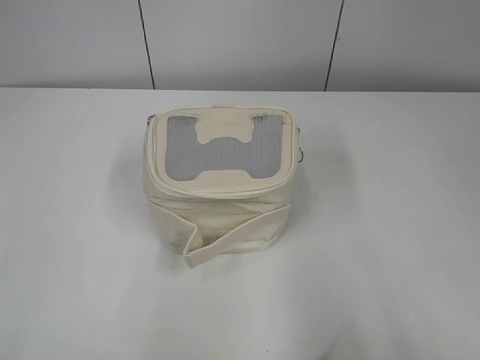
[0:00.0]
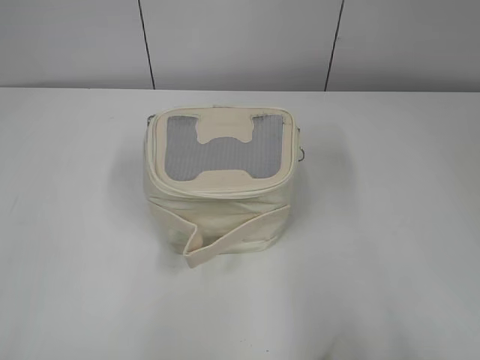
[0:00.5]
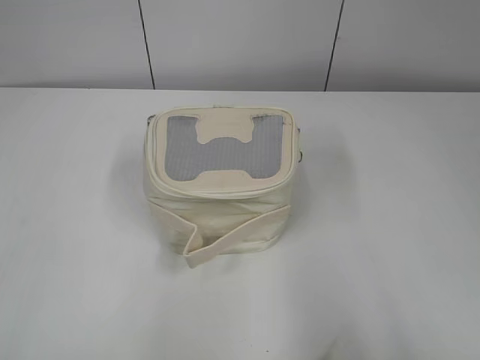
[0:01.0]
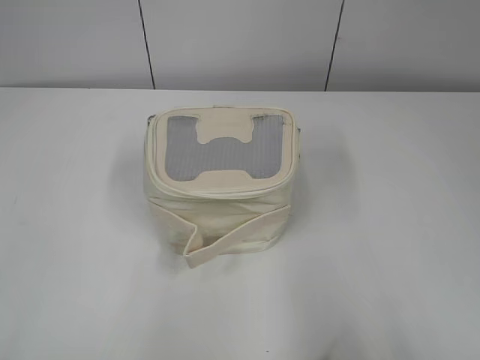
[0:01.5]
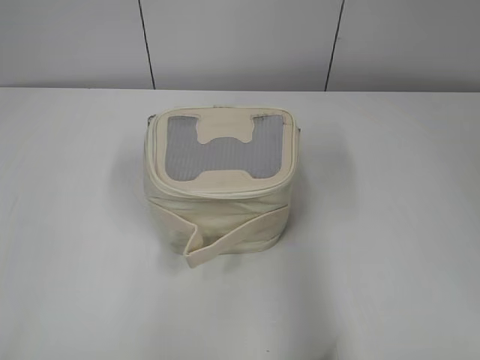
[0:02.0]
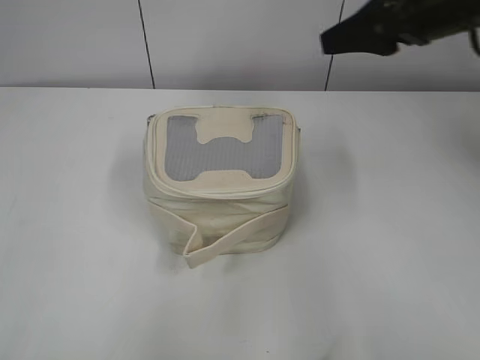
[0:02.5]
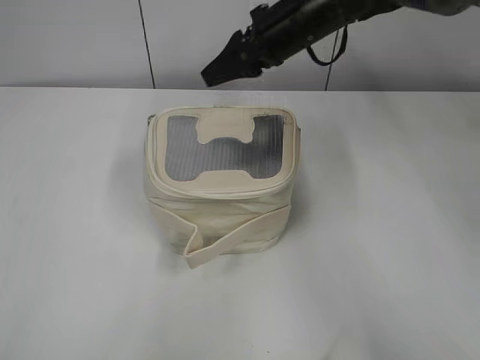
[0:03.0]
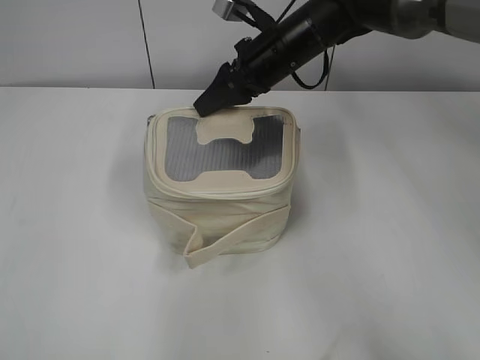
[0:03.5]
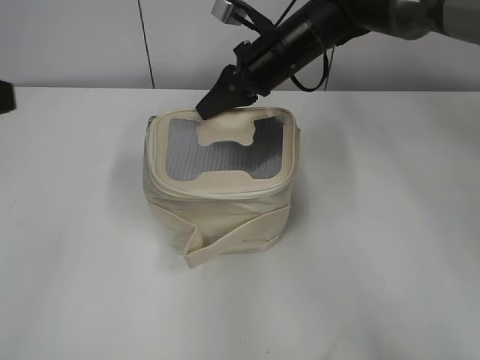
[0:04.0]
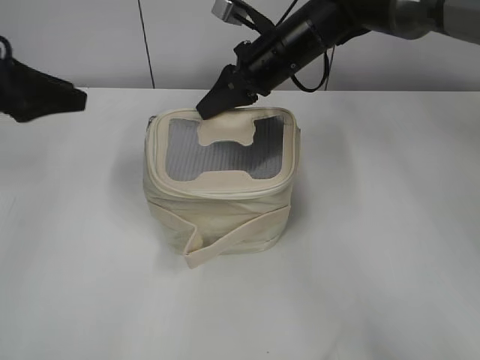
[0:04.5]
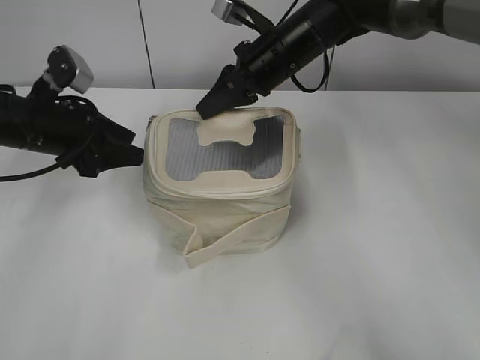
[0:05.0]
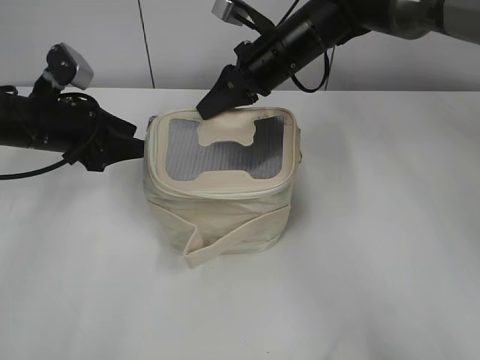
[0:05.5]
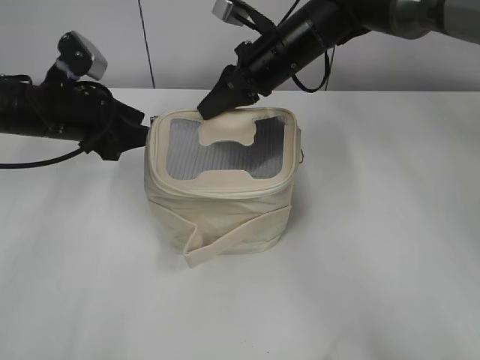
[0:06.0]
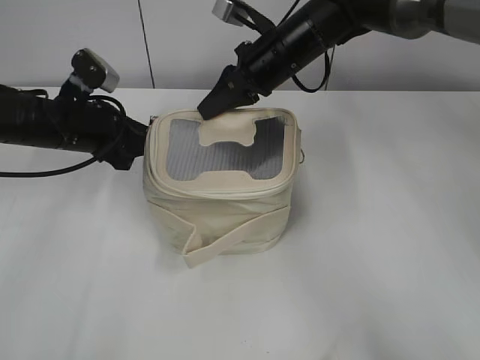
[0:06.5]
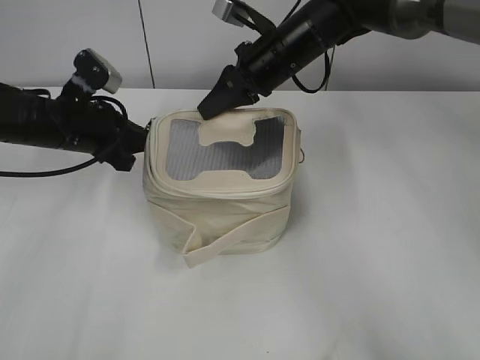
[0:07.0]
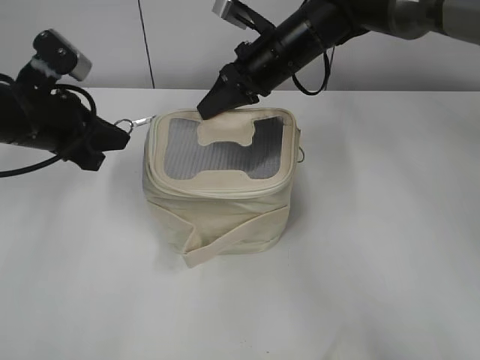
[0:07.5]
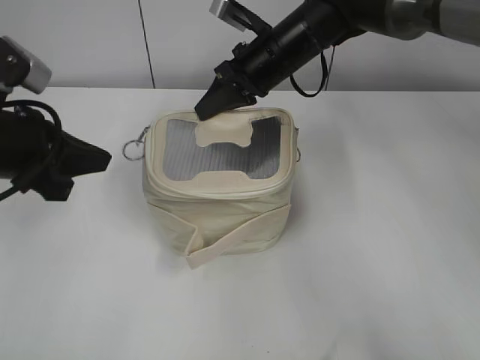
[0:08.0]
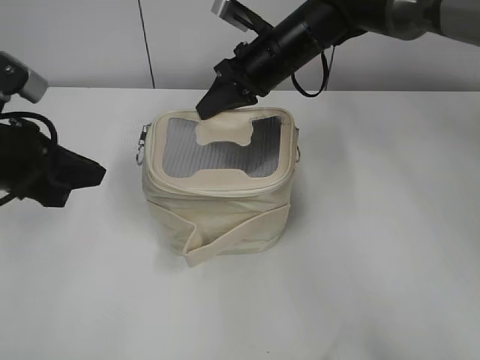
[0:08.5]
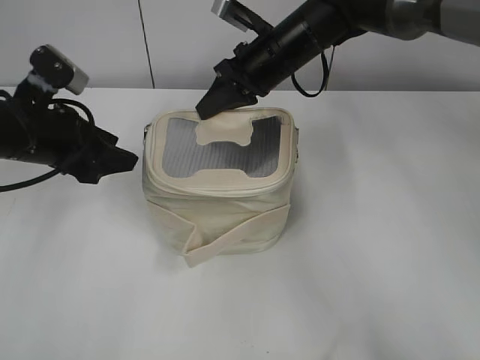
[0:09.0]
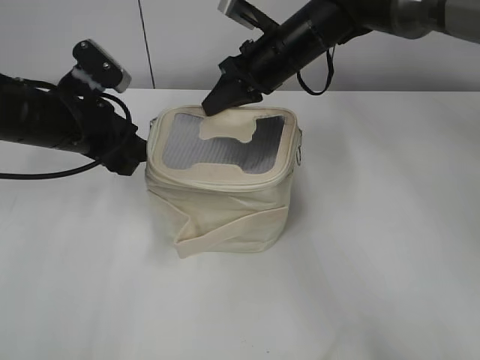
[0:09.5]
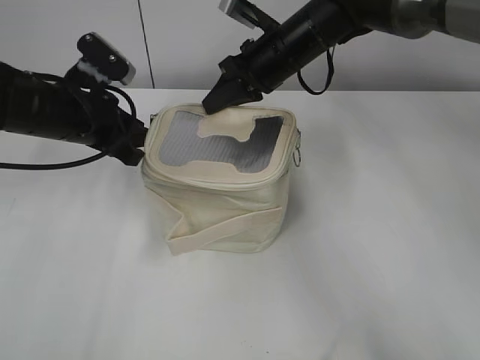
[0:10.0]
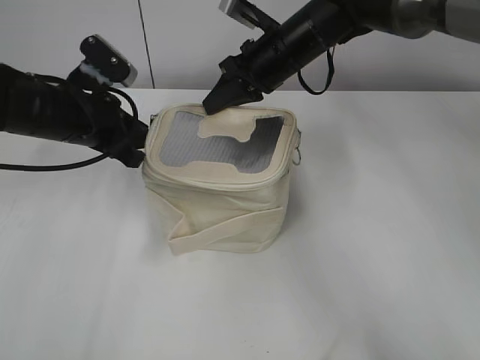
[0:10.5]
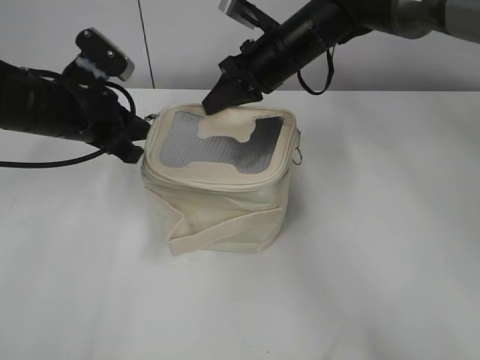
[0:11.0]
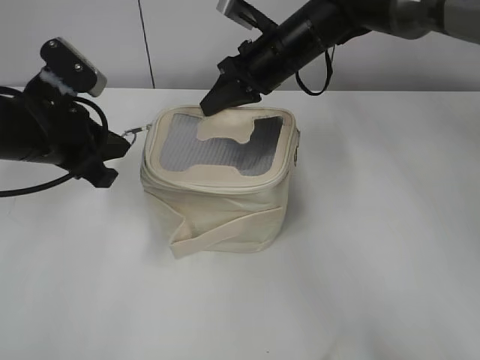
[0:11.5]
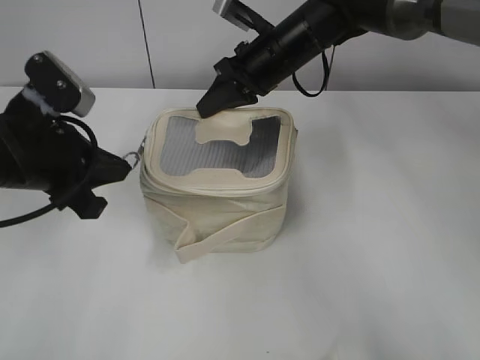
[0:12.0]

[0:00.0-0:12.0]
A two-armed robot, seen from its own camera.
2.0 to 4.0 s: The right gripper travels forward and to the left by roughly 40 cm, and closes; the left gripper travels forward by about 15 cm.
4.0 to 6.0 s: The left gripper is displaced forward and downward by some 25 cm.
6.0 to 8.0 s: The left gripper goes some 10 cm backward, and closes up.
8.0 to 10.0 s: The left gripper moves forward, roughly 10 cm, and opens up.
10.0 to 12.0 s: The left gripper travels backward by about 10 cm, and closes.

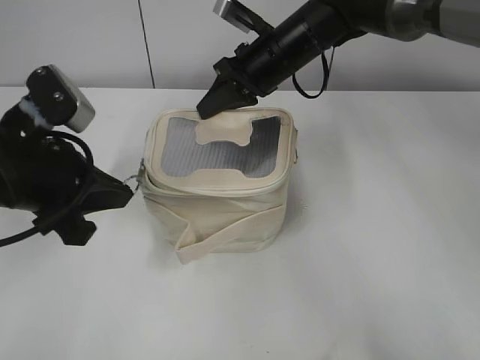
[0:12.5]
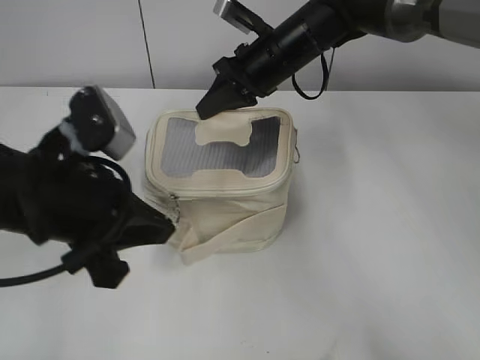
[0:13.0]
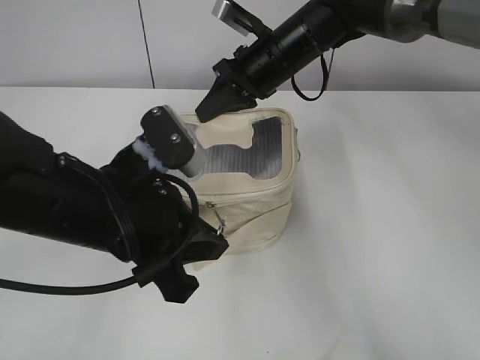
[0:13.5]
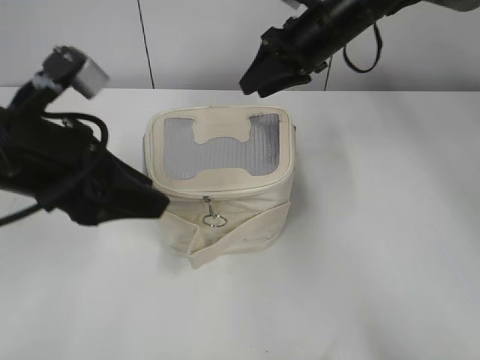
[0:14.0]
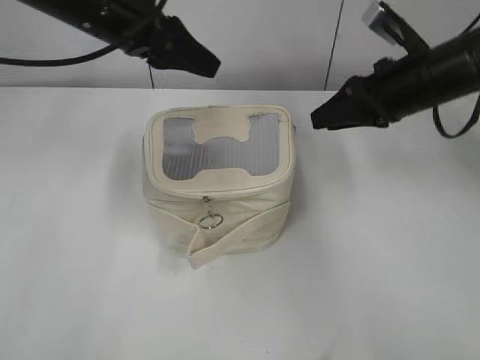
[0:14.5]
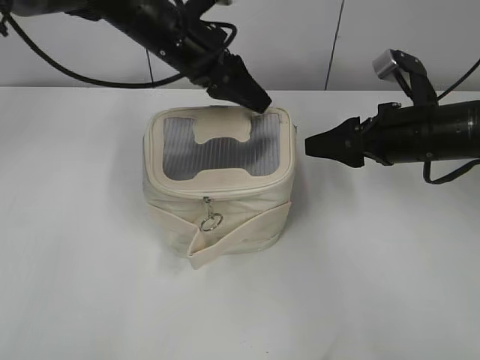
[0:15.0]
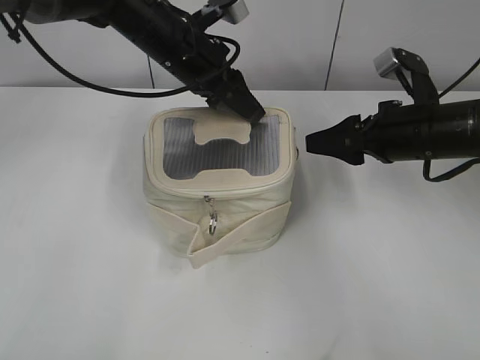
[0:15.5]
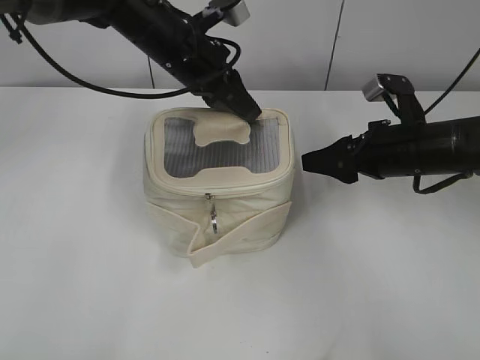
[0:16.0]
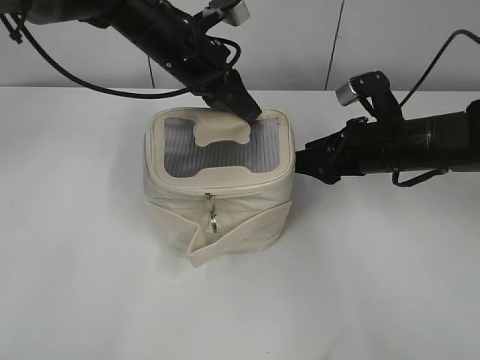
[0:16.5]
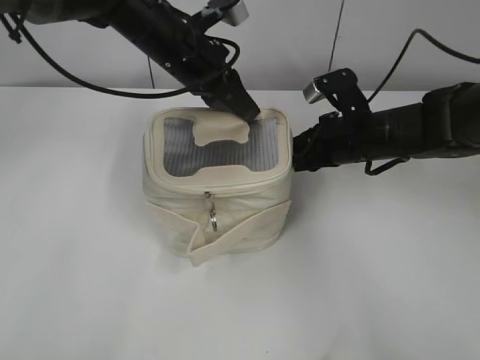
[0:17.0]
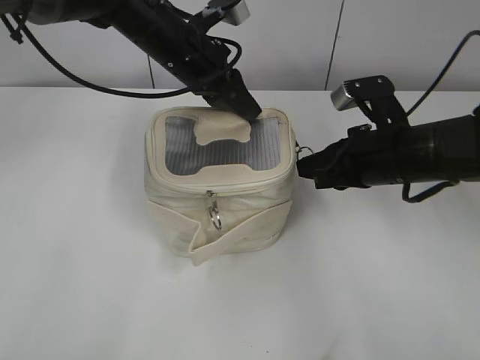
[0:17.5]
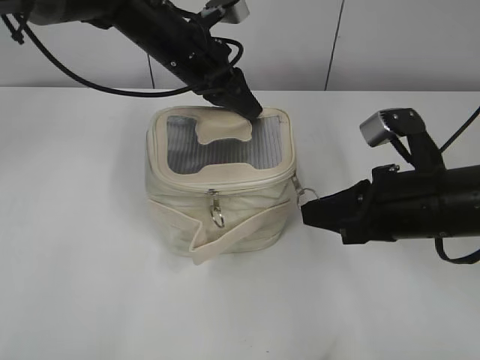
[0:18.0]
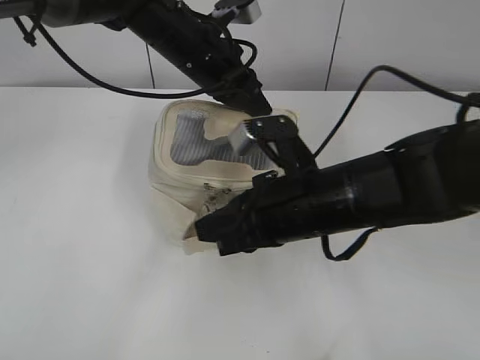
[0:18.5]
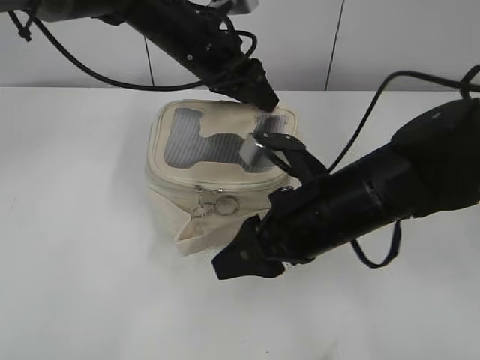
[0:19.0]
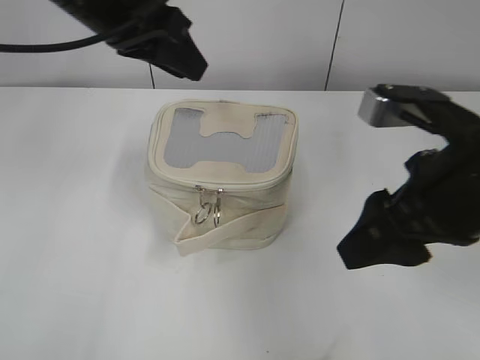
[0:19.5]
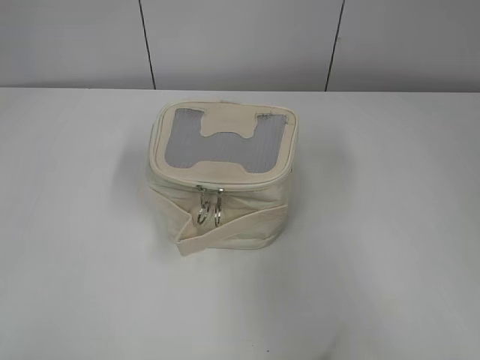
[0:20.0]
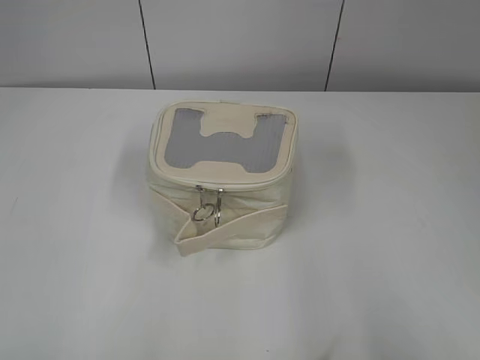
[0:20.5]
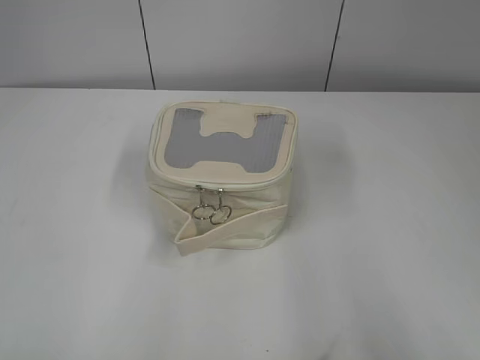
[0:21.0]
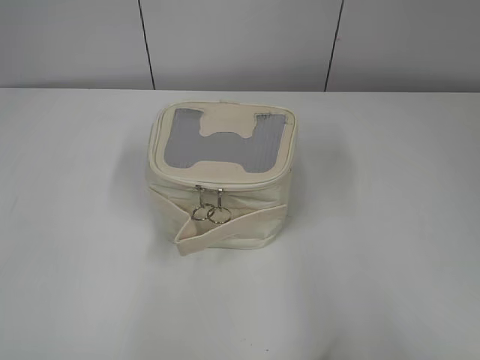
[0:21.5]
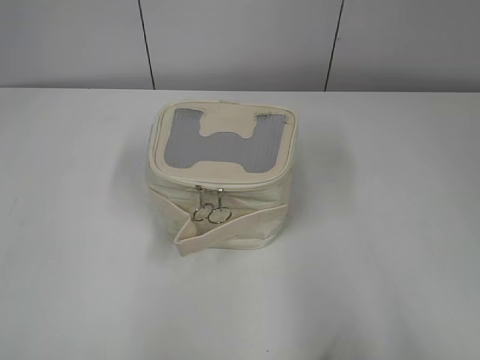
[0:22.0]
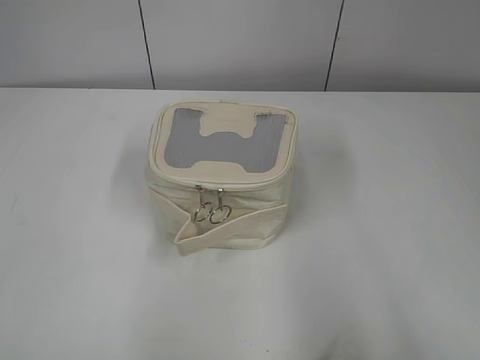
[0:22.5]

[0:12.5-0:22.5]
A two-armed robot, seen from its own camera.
Step, 14.5 to 18.5 s: Zip up the bag with your right hand.
12.5 to 14.5 s: The right gripper moves to the right and backward, about 15 cm, and opens; the left gripper moves forward, upward and to the right, some 20 cm, and opens up.
14.5 to 16.5 s: The left gripper goes about 10 cm to the right and downward, and closes up, while the right gripper heads downward, covering some 10 cm.
16.5 to 18.5 s: The right gripper travels backward and to the left by approximately 15 cm, and closes.
18.5 to 20.5 s: The left gripper moves backward and to the left, about 50 cm, and opens; the right gripper goes roughly 35 cm backward, to the right and upward, and opens.

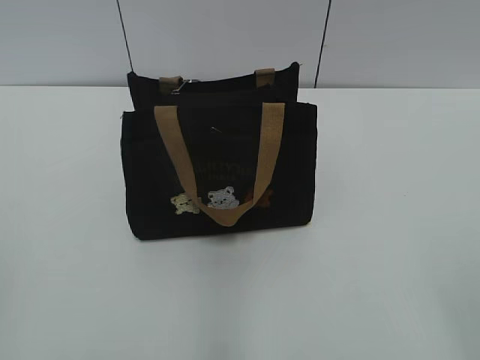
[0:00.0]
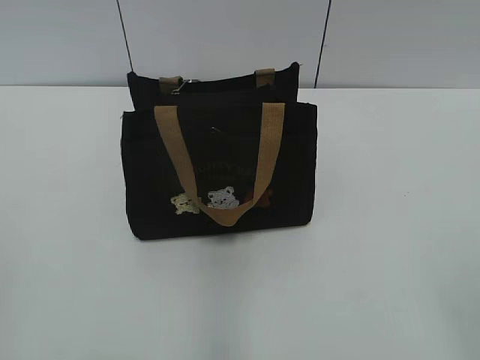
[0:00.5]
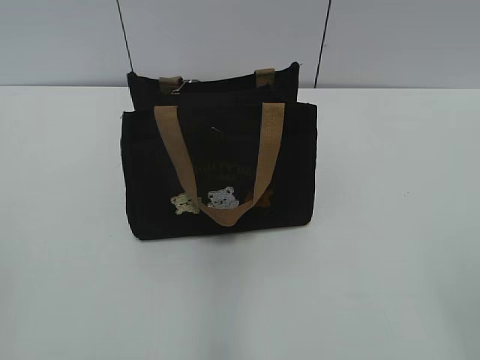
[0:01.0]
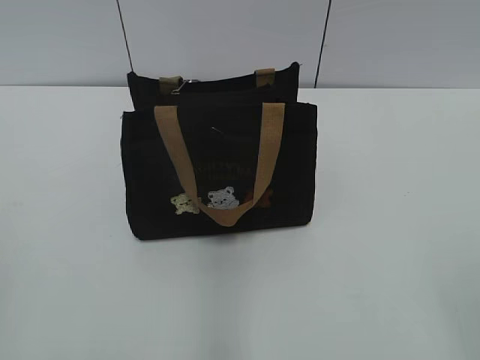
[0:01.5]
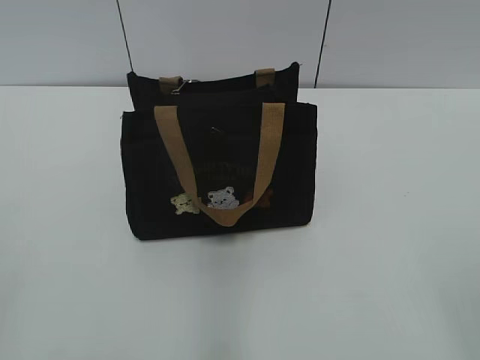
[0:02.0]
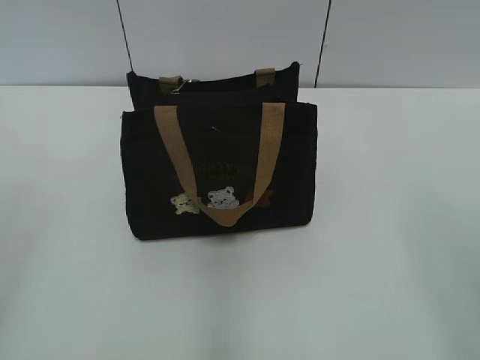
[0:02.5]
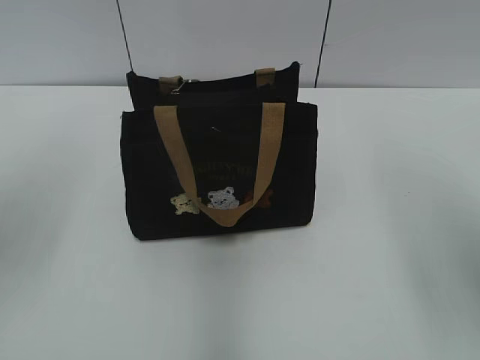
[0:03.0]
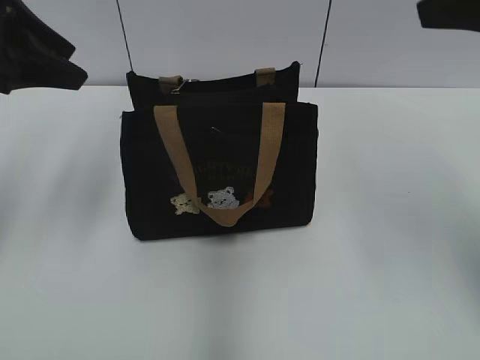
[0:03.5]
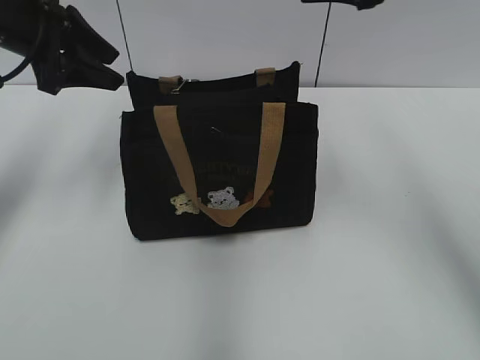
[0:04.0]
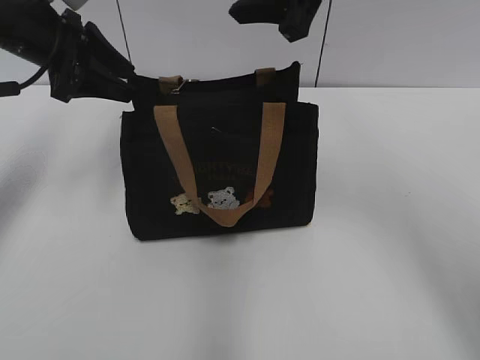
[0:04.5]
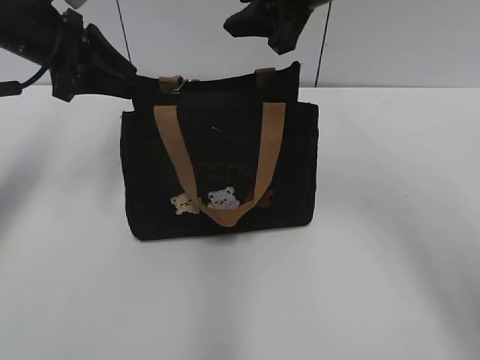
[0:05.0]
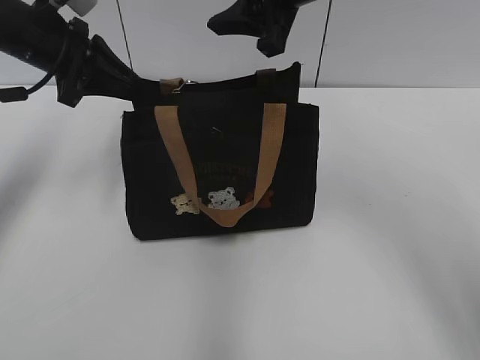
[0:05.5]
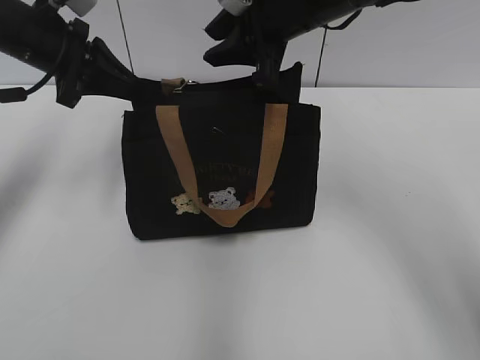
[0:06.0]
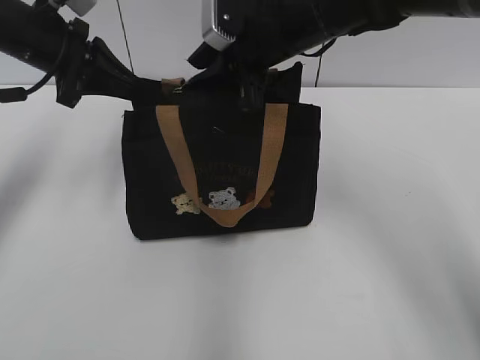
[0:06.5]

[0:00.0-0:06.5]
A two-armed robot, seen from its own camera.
2.0 to 4.5 s: The right gripper travels forward and to the left by roughly 40 cm, while the left gripper moves forward, about 40 cm.
4.5 to 6.5 s: The left gripper closes, while the right gripper travels downward by roughly 10 cm.
